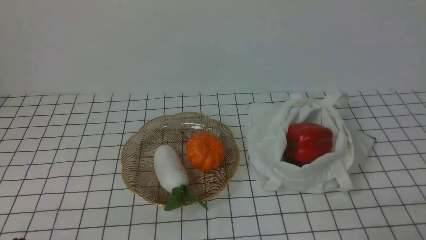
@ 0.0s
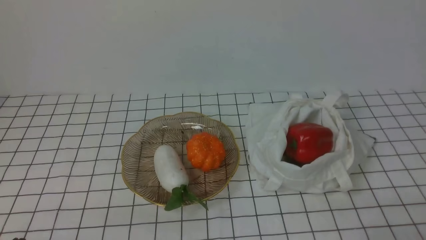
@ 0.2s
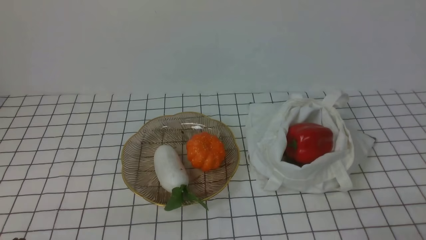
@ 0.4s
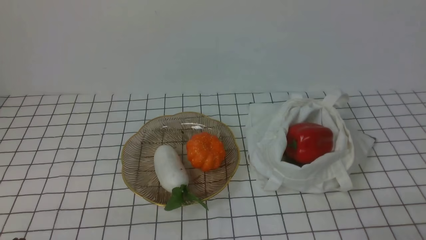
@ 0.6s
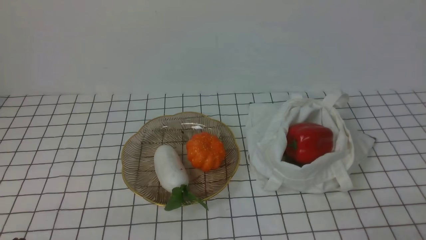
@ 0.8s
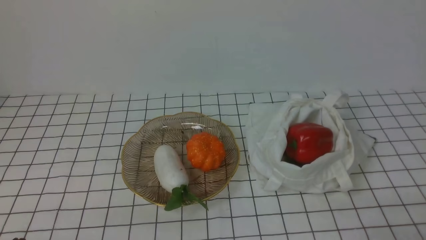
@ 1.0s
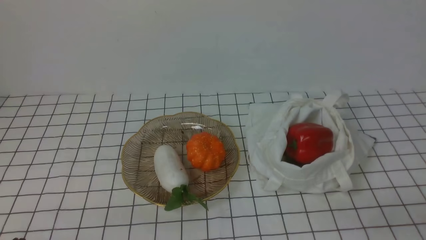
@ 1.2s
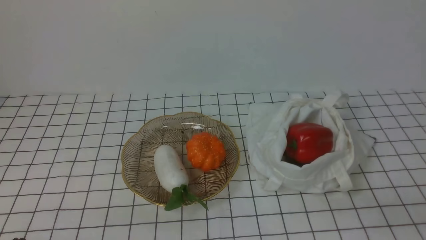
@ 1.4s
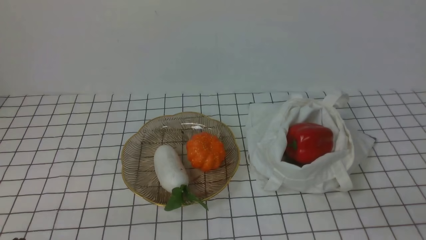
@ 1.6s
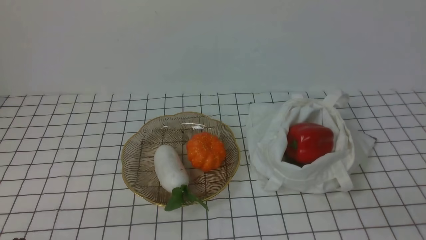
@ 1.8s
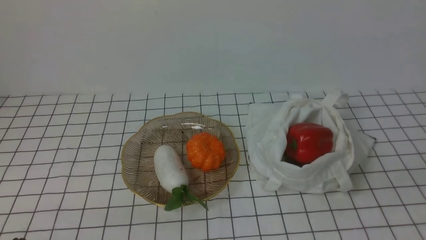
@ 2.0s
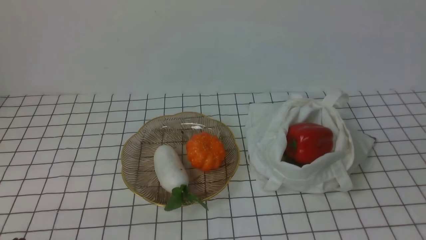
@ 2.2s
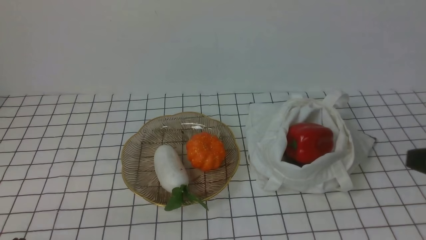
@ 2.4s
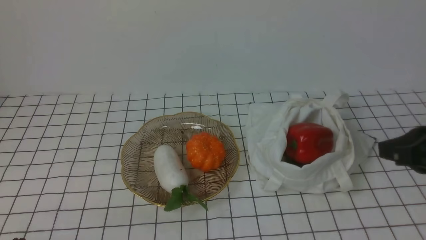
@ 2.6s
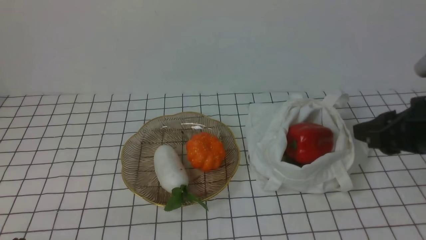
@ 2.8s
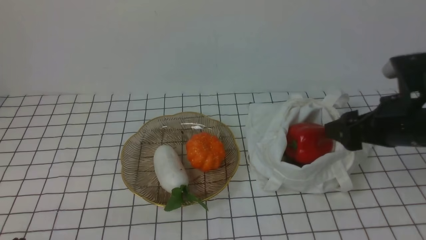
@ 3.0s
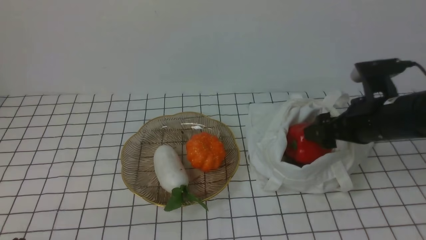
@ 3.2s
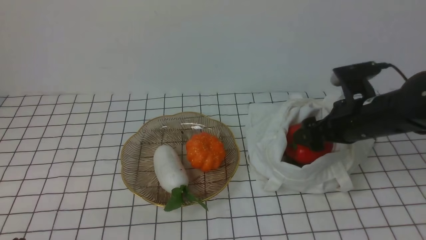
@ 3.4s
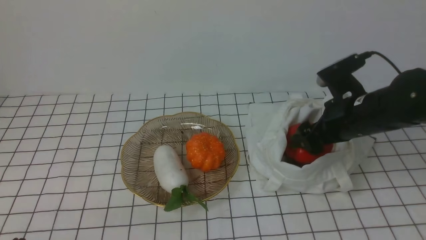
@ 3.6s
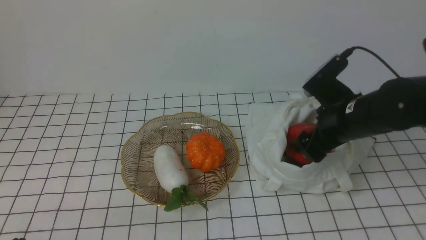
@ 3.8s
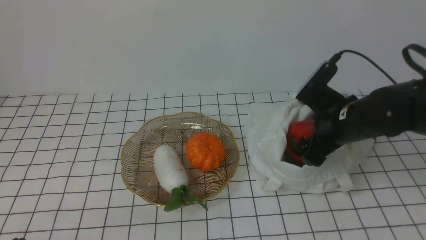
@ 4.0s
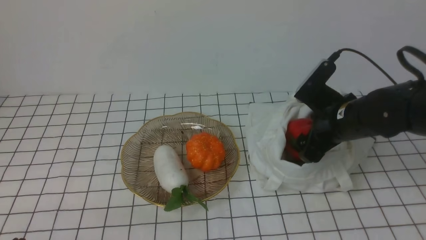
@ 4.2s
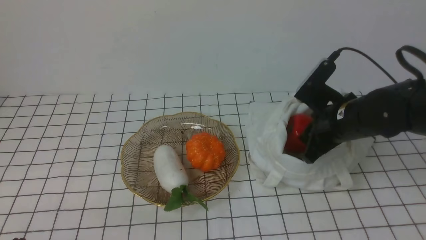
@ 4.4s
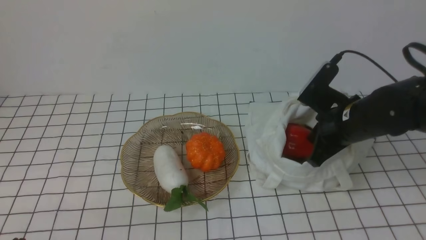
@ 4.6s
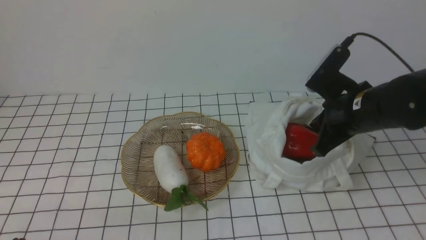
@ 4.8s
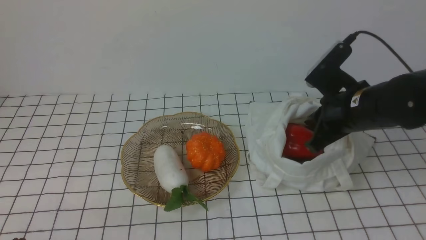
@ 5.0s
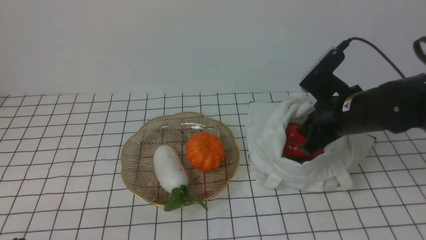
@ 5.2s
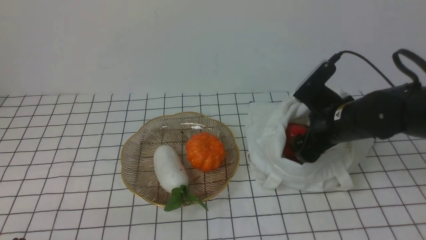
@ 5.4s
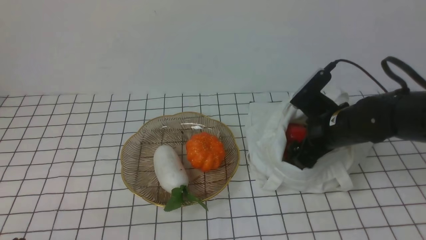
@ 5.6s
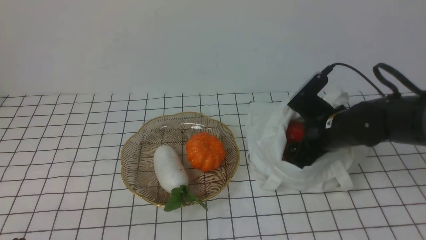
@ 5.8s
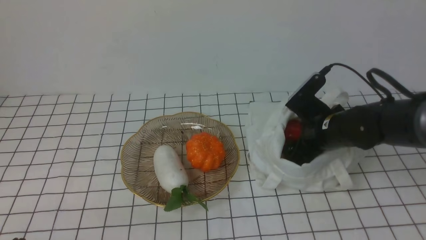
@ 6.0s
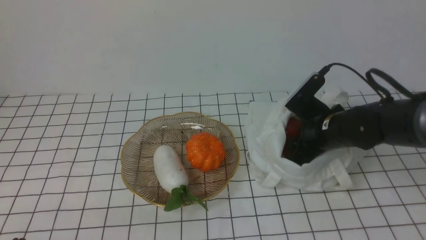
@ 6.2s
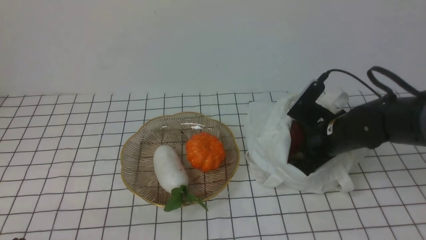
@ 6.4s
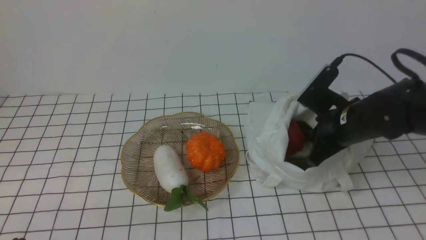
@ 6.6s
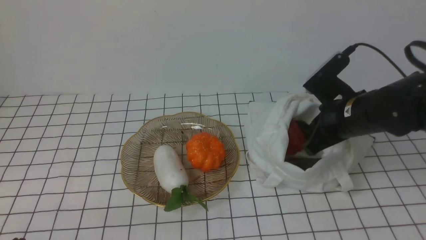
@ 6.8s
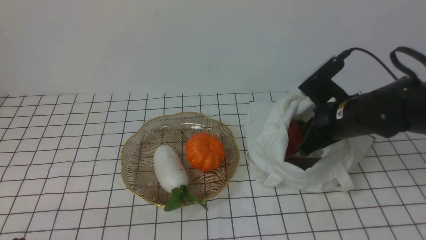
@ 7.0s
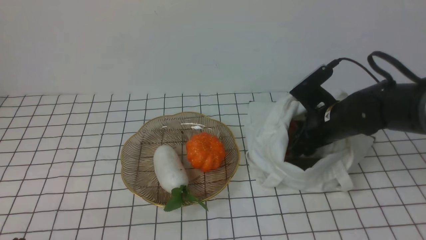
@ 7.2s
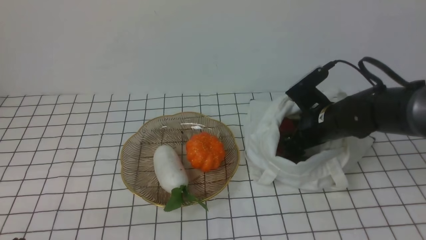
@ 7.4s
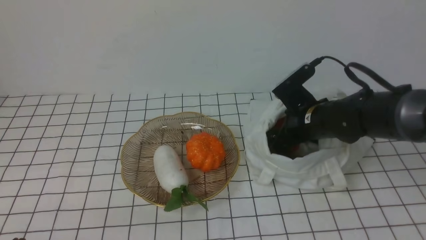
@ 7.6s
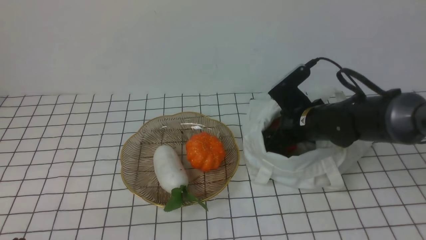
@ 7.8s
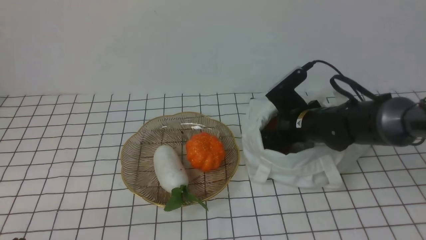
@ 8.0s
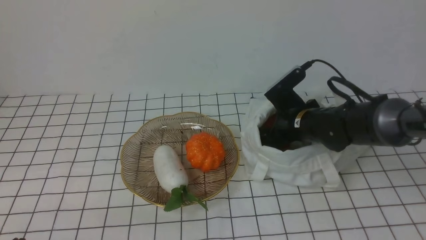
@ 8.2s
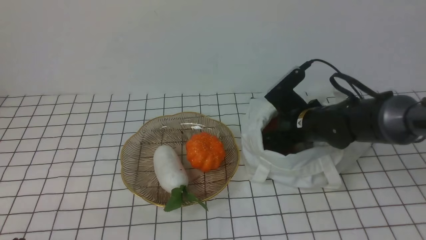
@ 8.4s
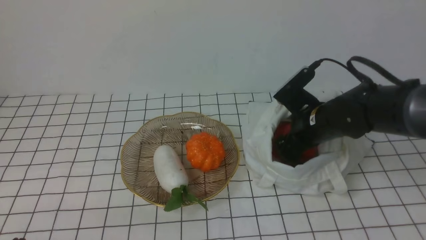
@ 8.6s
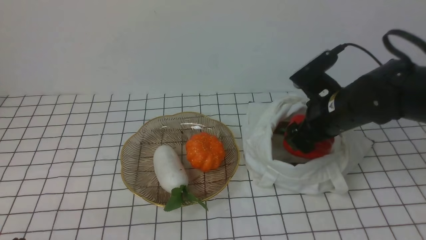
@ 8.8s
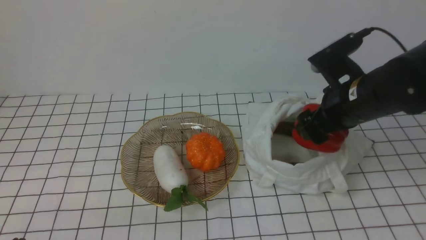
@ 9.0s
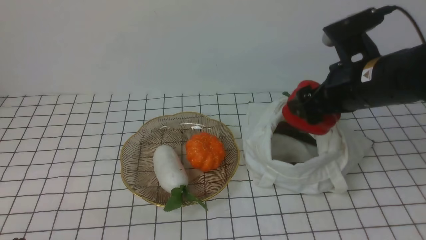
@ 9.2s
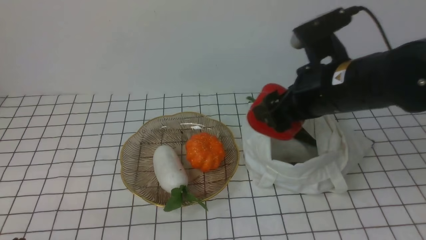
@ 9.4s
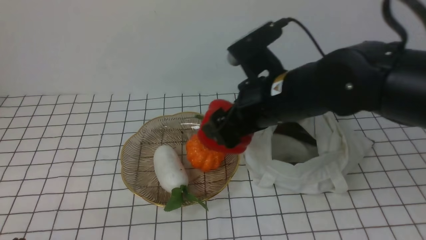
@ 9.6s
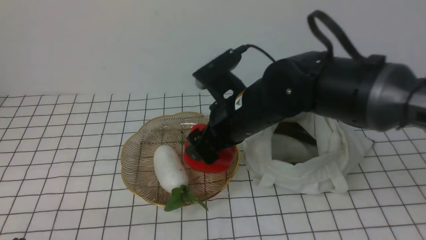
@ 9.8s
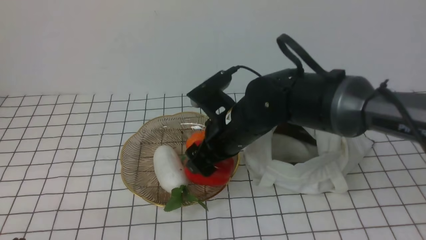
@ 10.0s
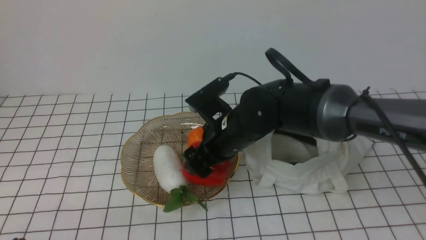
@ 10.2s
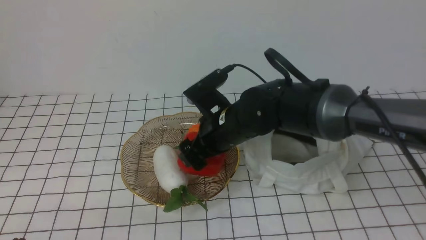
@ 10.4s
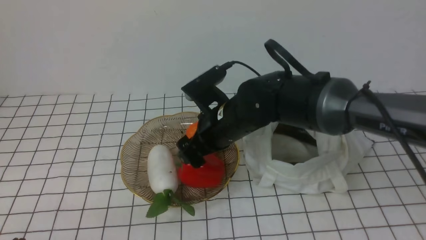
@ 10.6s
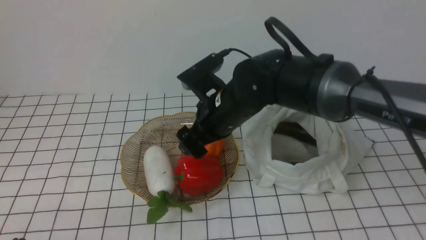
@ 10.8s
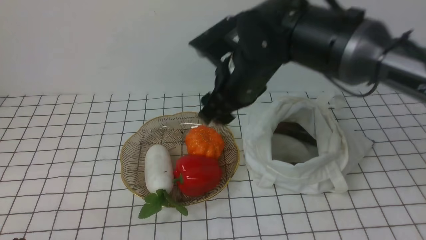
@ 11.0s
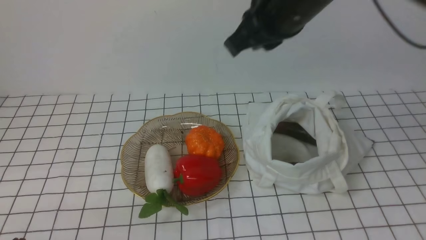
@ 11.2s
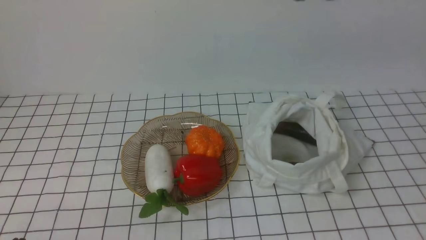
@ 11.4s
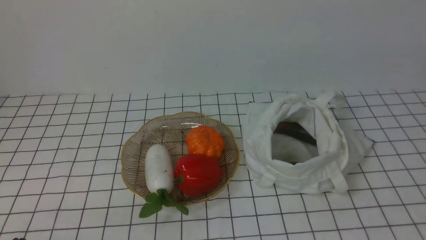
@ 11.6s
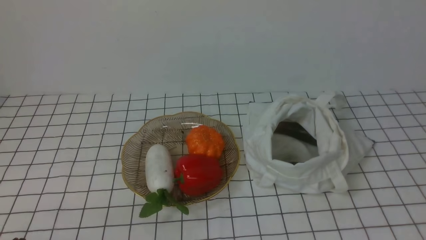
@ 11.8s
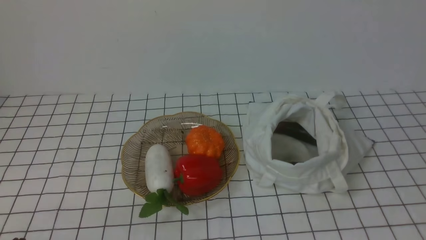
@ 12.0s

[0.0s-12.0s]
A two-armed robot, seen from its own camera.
Task of the whole recording: take vegetables from bag on white checkered tablecloth place on plate.
Step, 0.0s to 8.4s: Grasp the bell pepper with right gripper.
Step, 8.6s to 10.8s: Place the bell pepper on the plate with right gripper.
1.6s to 3.0s: The right gripper moves forward, about 20 cm, and opens.
3.0s to 4.4s: The right gripper is displaced forward and downward by roughly 10 cm, and closes.
4.4s to 6.0s: The right gripper shifts by some 5 cm, and opens its fingers.
6.0s to 7.6s: The right gripper closes, then reopens.
7.6s to 9.0s: The right gripper travels upward and backward by some 10 cm.
9.0s to 10.4s: The right gripper goes about 15 cm to the left.
10.4s to 12.0s: The right gripper goes approximately 50 cm backward, to the right and upward, and closes up.
